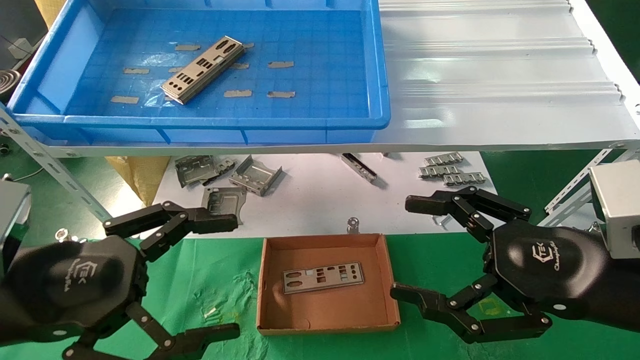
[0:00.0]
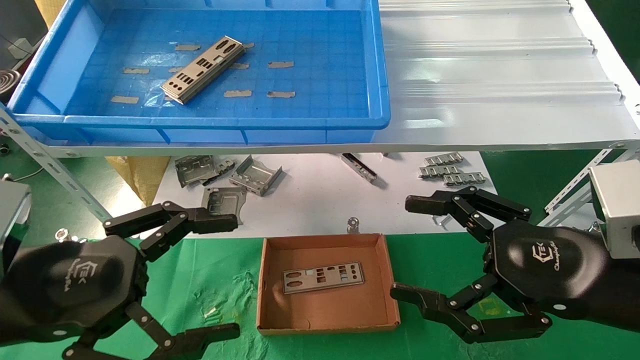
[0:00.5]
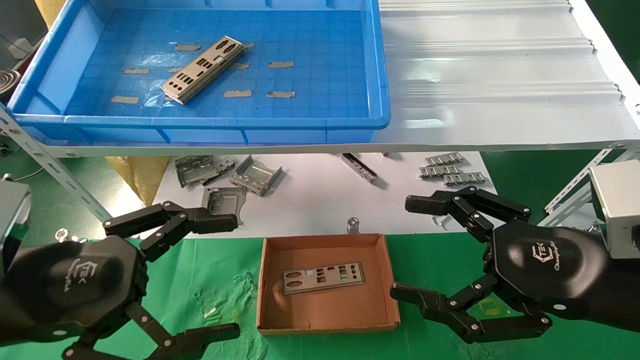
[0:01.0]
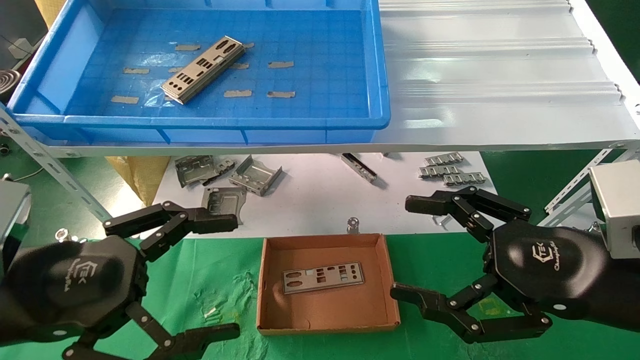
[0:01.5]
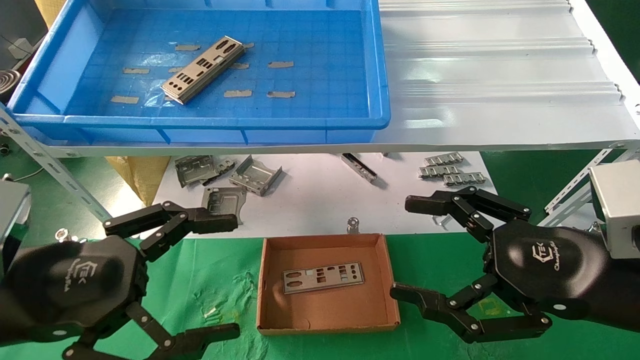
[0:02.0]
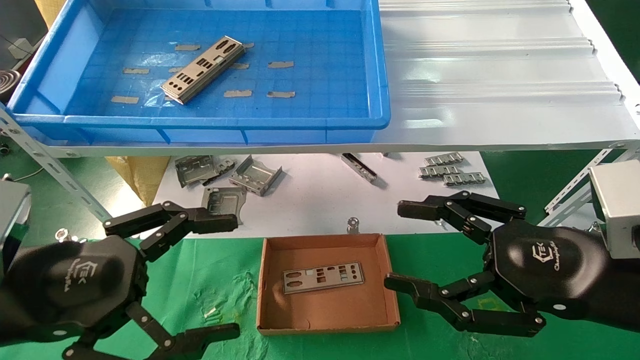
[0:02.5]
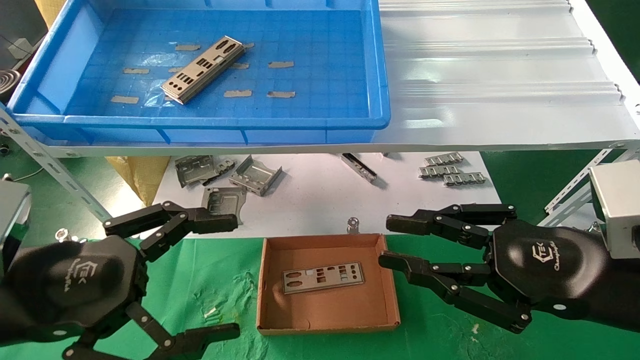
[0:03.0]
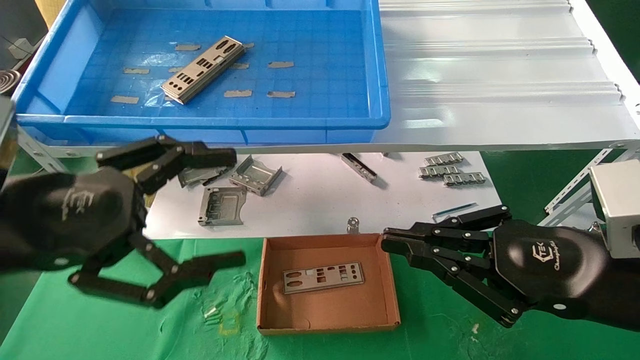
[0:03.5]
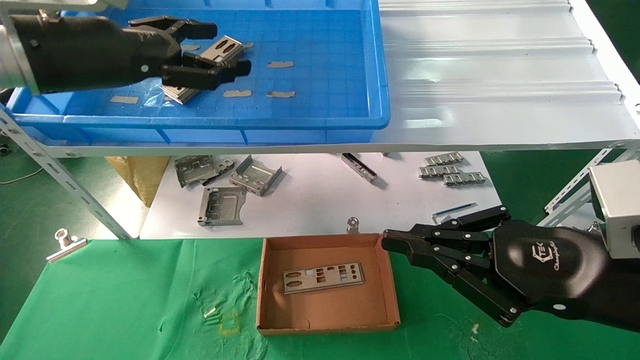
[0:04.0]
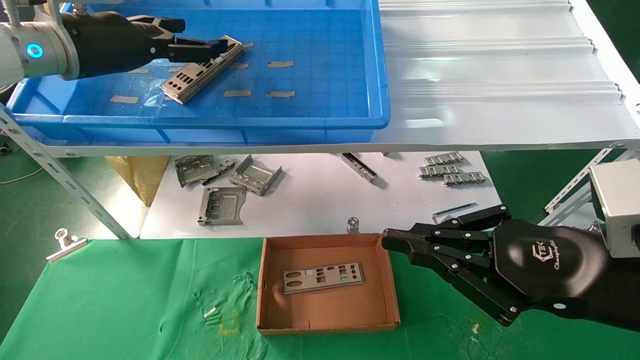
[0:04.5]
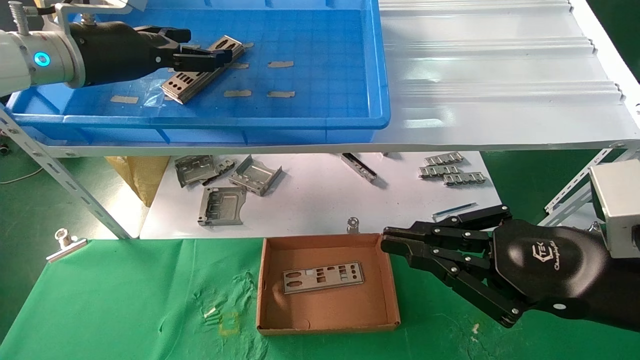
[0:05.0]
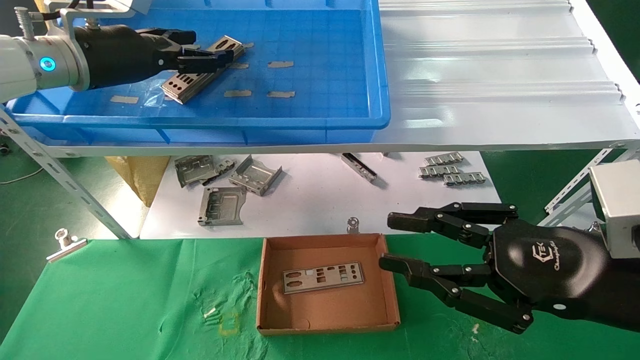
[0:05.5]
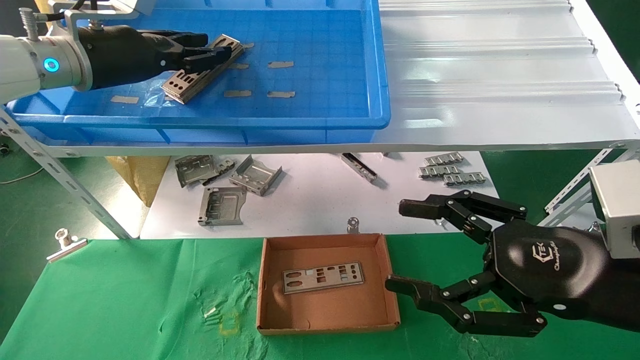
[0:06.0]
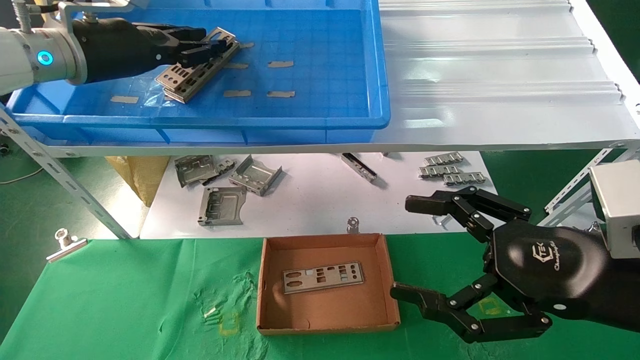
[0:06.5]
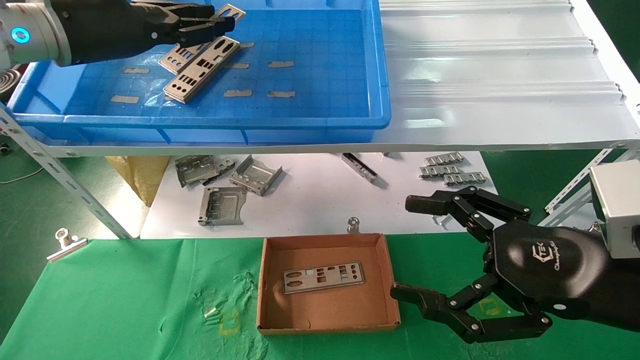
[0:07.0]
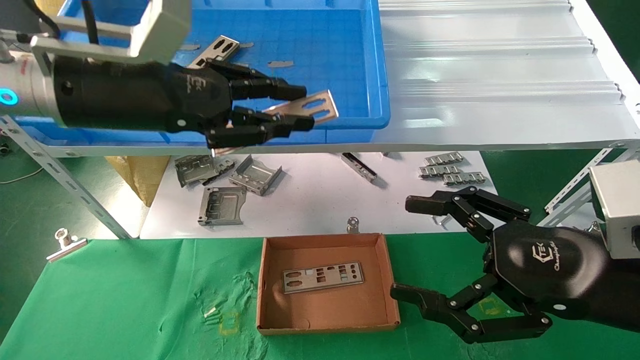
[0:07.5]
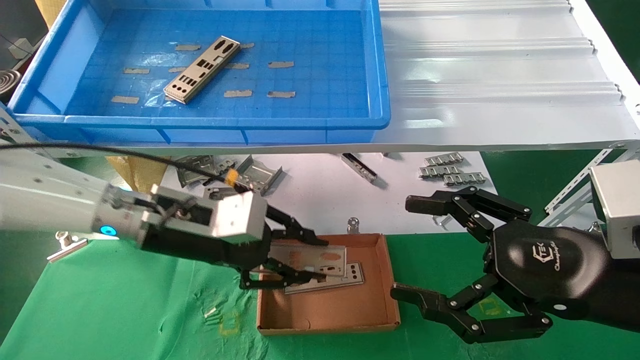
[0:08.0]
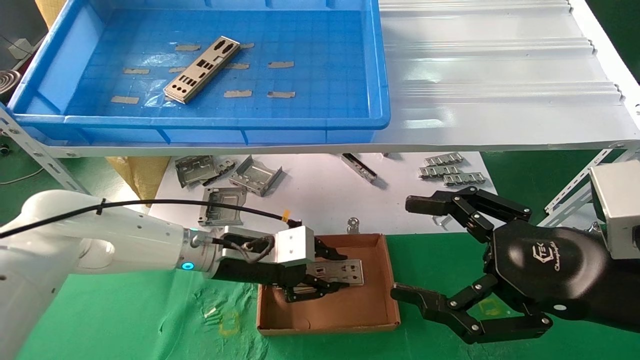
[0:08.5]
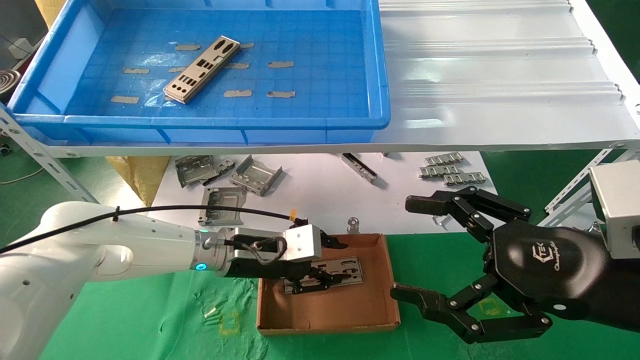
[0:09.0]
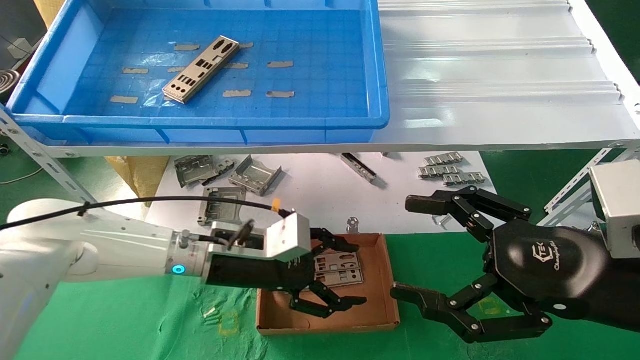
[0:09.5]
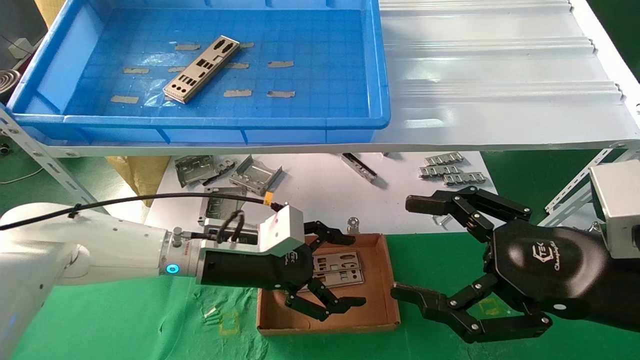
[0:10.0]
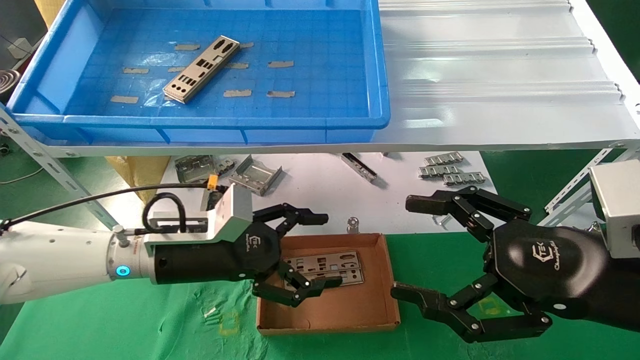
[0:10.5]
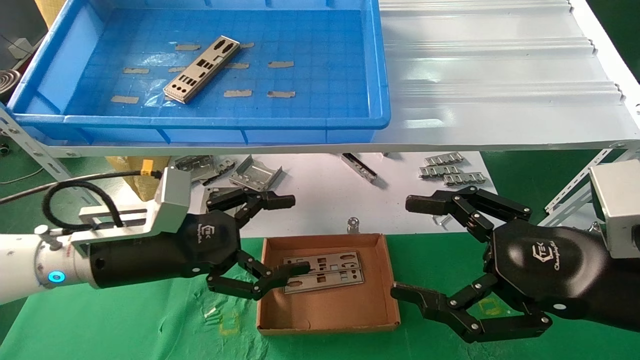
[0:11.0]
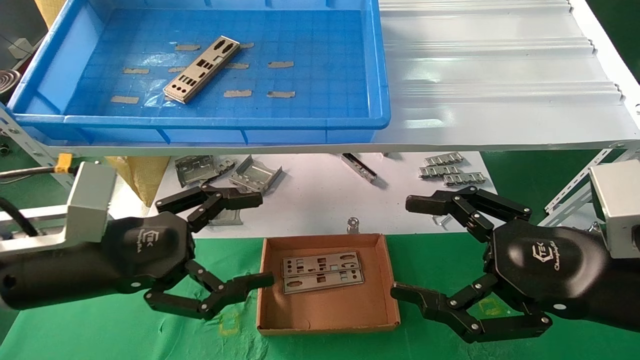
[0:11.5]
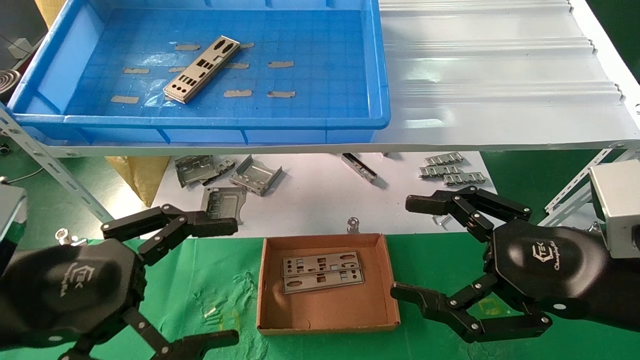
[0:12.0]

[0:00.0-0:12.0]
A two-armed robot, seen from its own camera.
Task of the whole recording: pick up the parts on the tray and put them in the cardboard box.
Step, 0:04.0 to 0:06.5: Pick up the IO bracket from the container box.
Step, 0:07.0 to 0:09.0: Place the IO bracket into the ingredient slot.
0:00.0 to 0:02.0: The two grippers keep their place.
0:02.0 to 0:04.0: The right gripper closes its fingers, while the left gripper goes approximately 25 cm upward and forward.
0:04.0 to 0:06.0: The left gripper moves forward, about 5 cm, and closes up. Meanwhile the right gripper opens up.
0:06.0 to 0:08.0: The left gripper goes approximately 20 cm downward and to the right, and closes up.
0:08.0 to 0:10.0: The left gripper moves downward, about 5 cm, and opens its fingers.
0:10.0 to 0:12.0: The left gripper heads backward and to the left, covering some 25 cm.

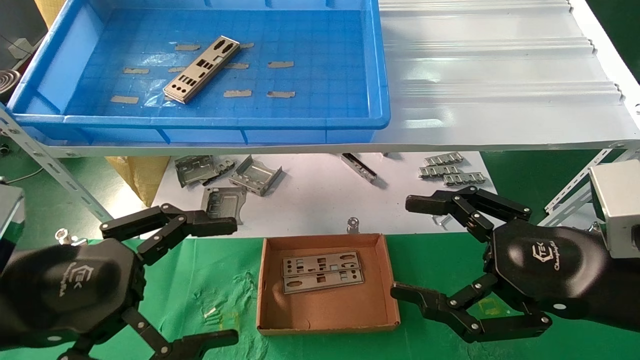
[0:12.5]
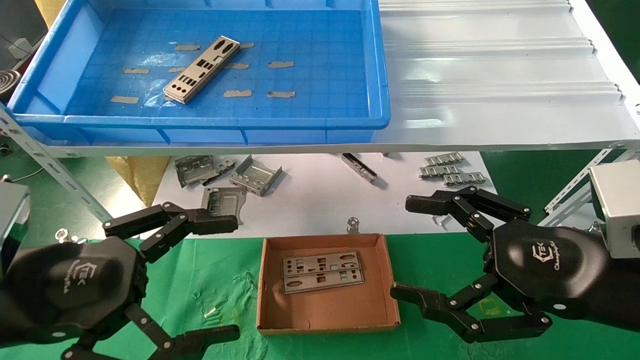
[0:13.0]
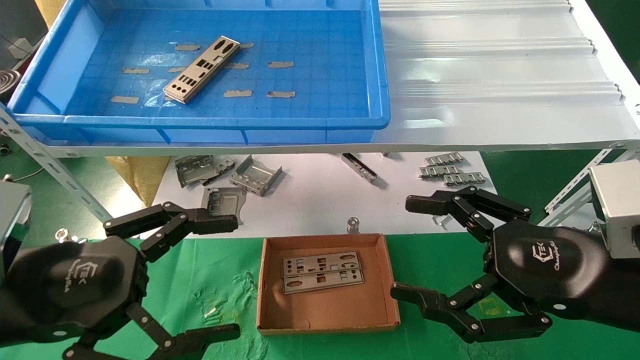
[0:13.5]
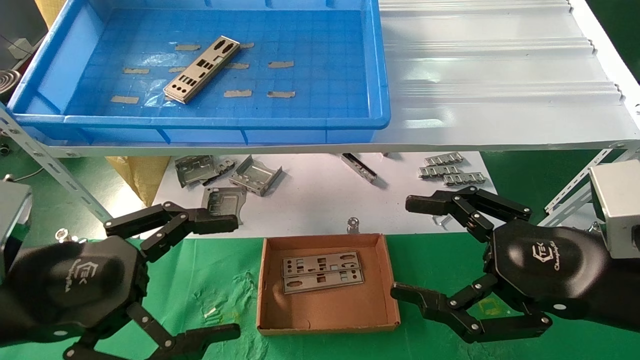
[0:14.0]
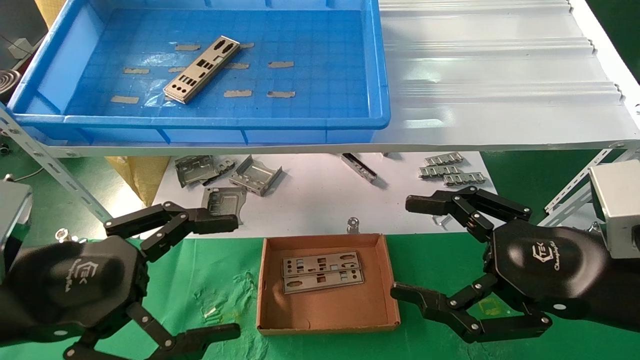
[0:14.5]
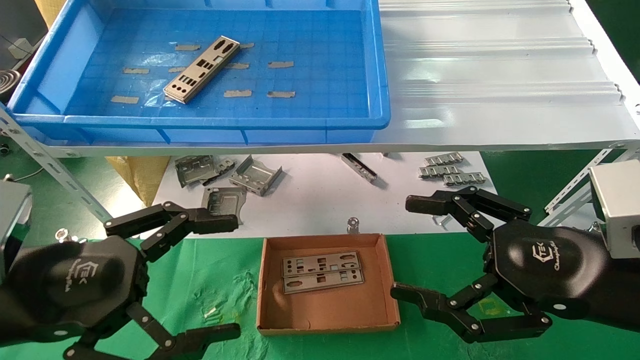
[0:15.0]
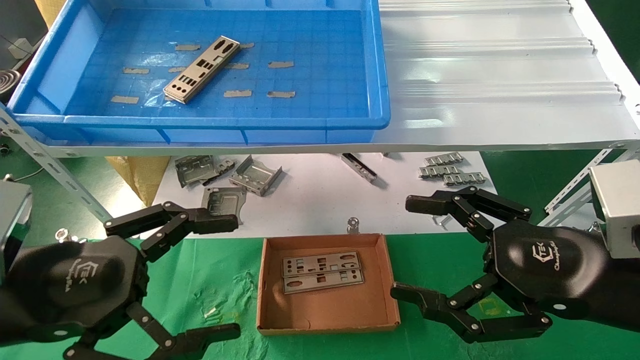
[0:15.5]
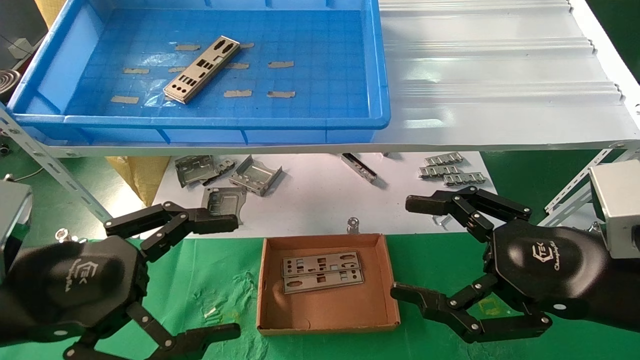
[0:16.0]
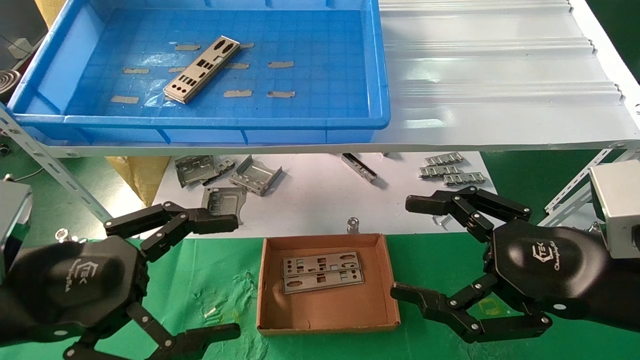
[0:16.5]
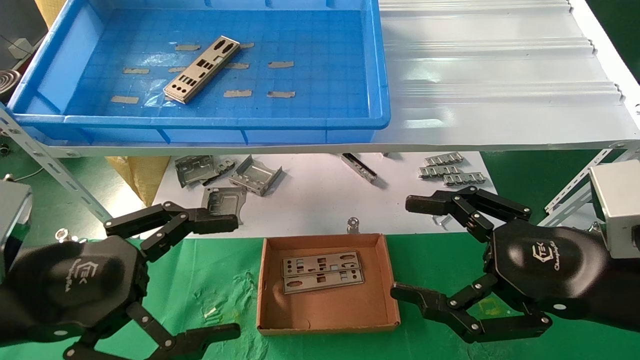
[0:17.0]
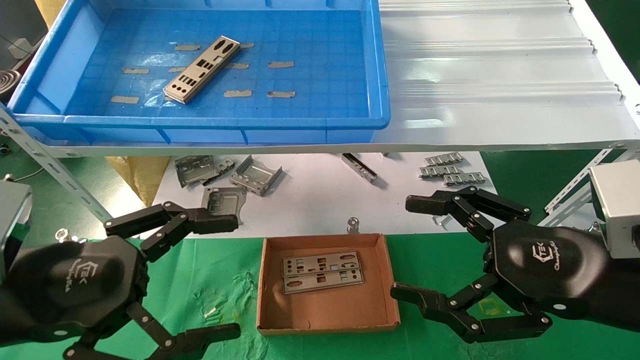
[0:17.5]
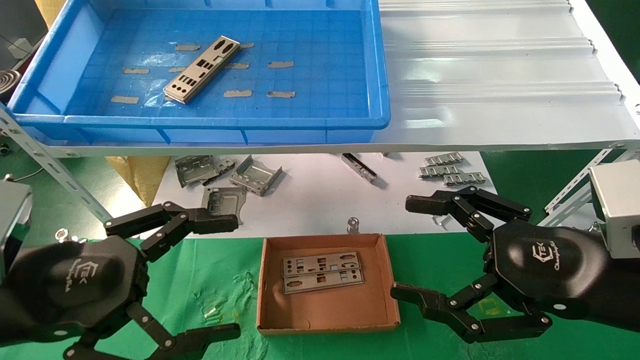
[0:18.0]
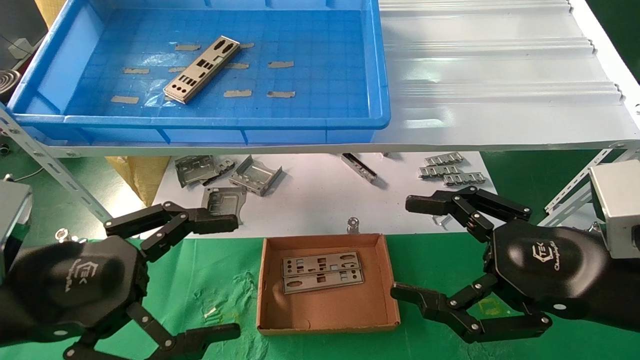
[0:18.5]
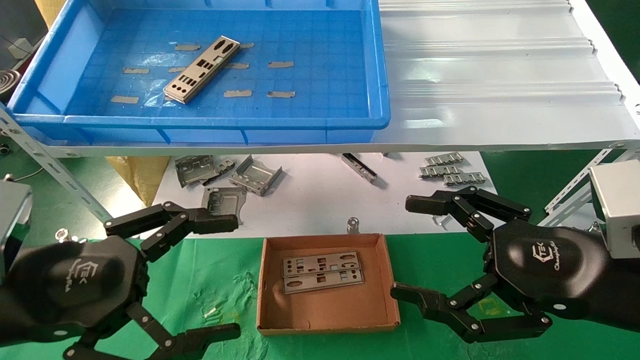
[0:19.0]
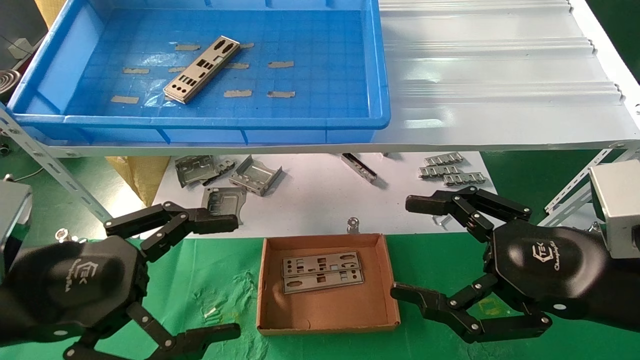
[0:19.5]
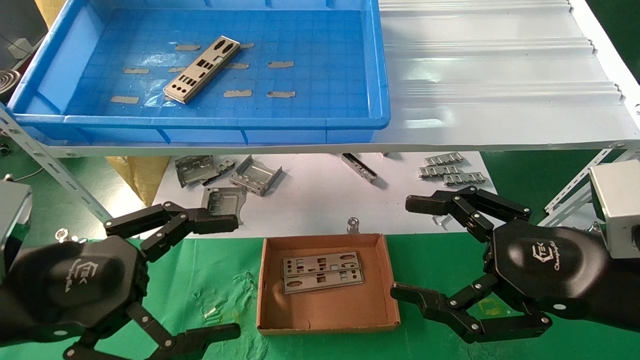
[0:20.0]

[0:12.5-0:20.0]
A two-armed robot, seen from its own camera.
Task of the whole recording: pick up the parts on the tray and put them in the cardboard box.
0:12.5 to 0:20.0: The two grippers keep their place.
